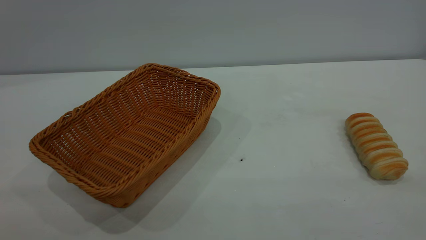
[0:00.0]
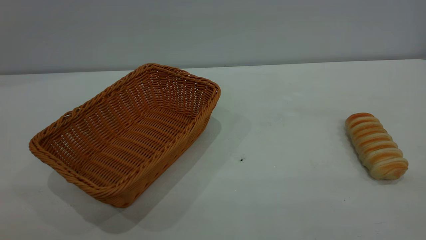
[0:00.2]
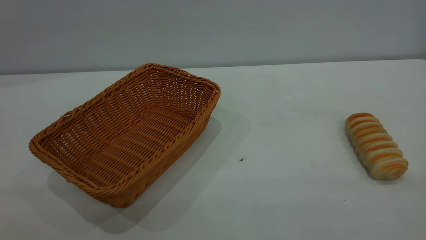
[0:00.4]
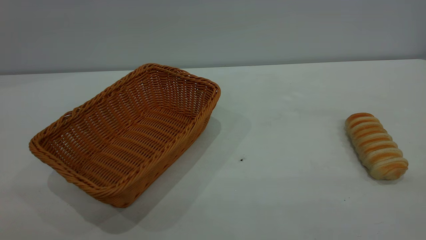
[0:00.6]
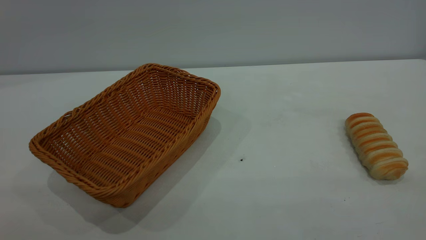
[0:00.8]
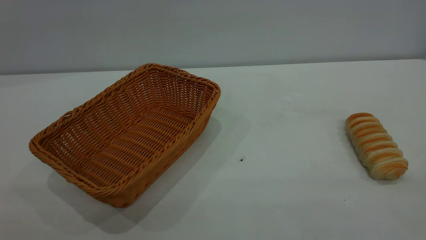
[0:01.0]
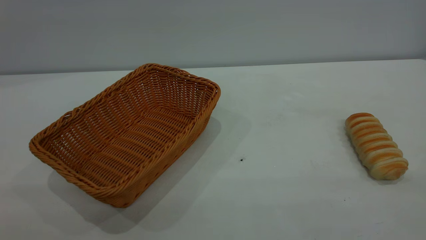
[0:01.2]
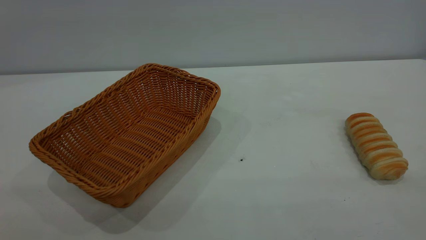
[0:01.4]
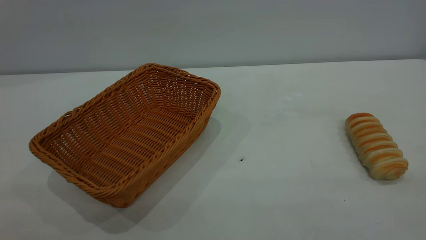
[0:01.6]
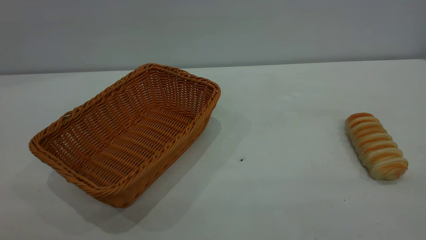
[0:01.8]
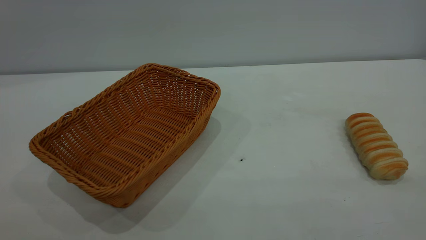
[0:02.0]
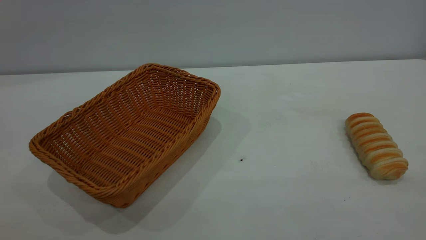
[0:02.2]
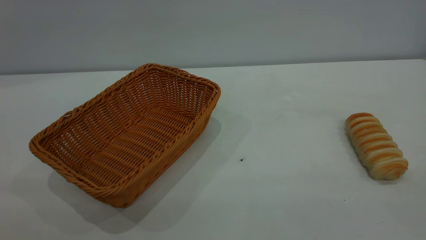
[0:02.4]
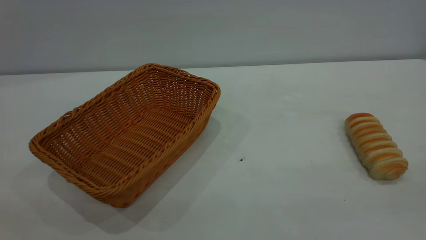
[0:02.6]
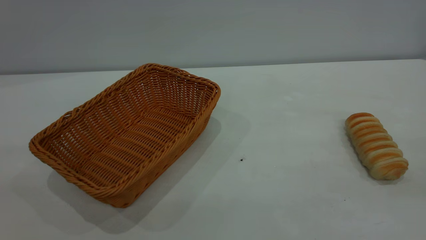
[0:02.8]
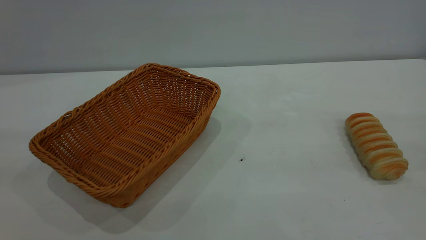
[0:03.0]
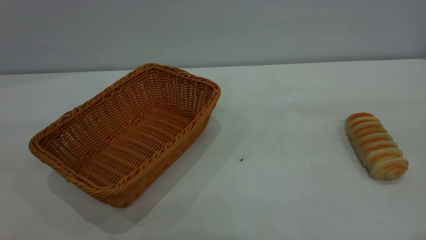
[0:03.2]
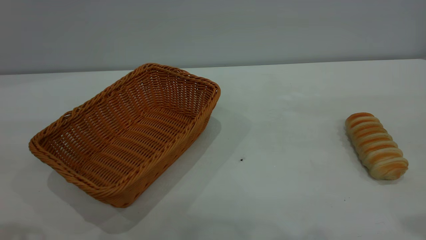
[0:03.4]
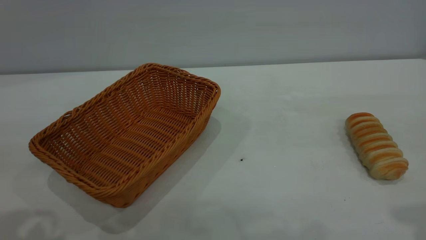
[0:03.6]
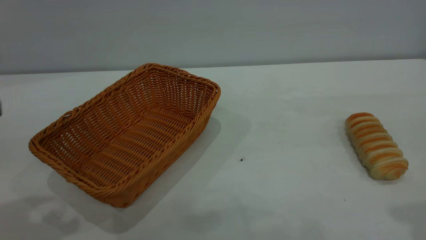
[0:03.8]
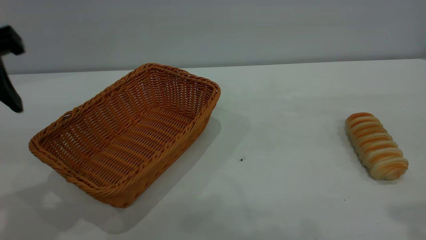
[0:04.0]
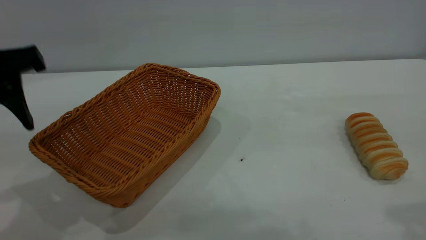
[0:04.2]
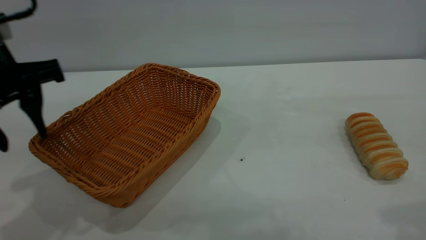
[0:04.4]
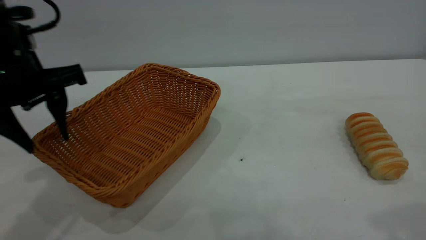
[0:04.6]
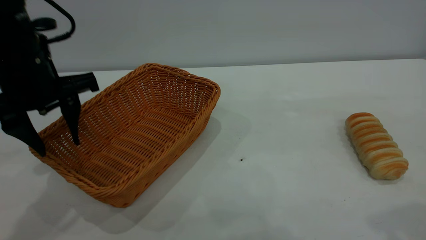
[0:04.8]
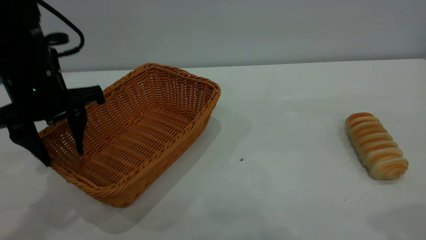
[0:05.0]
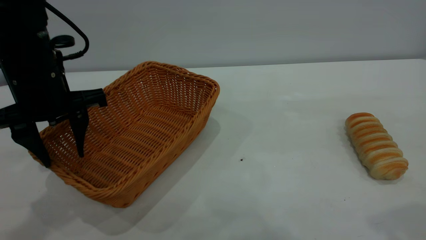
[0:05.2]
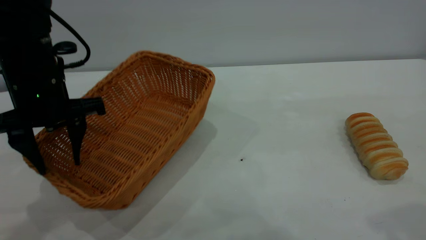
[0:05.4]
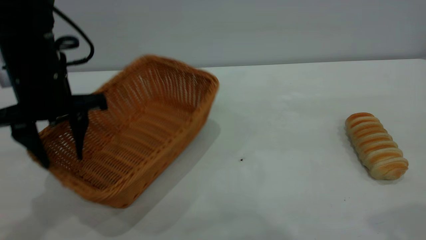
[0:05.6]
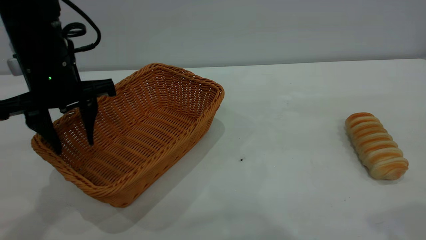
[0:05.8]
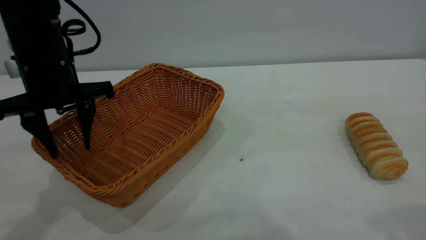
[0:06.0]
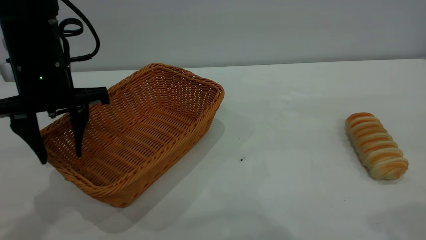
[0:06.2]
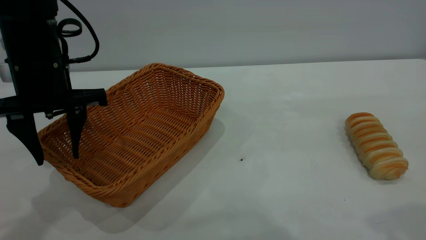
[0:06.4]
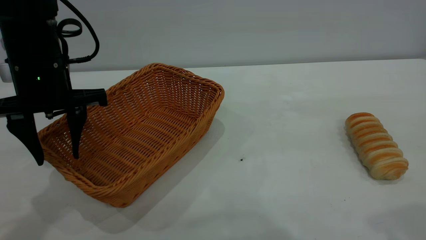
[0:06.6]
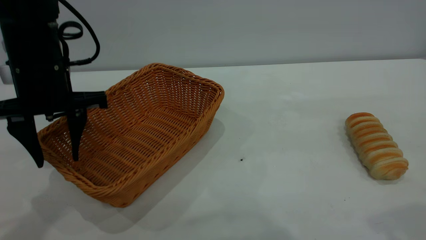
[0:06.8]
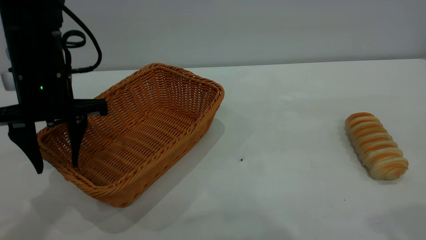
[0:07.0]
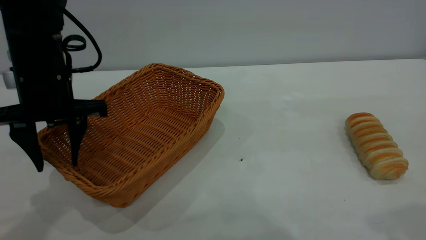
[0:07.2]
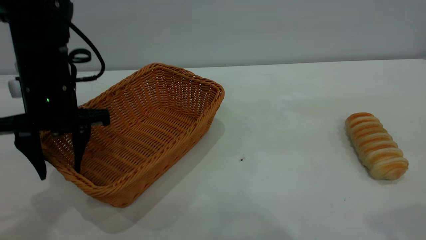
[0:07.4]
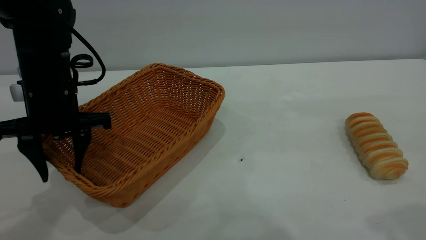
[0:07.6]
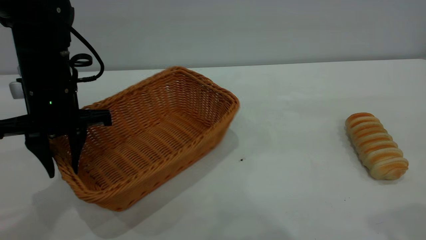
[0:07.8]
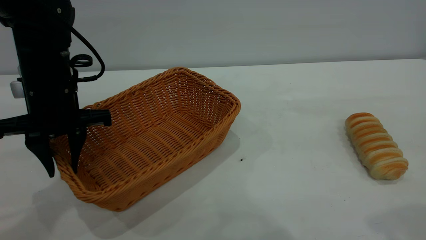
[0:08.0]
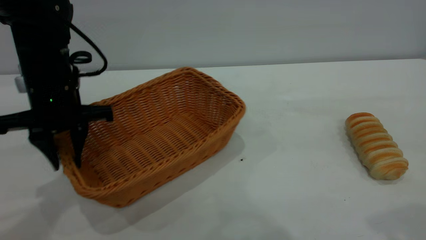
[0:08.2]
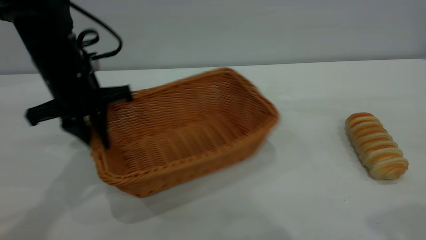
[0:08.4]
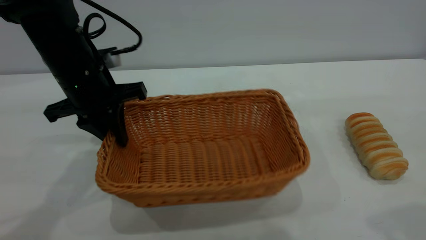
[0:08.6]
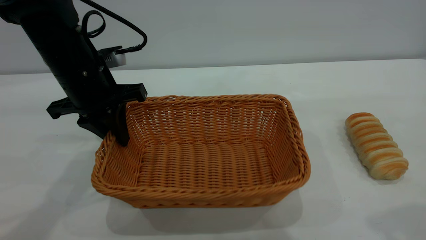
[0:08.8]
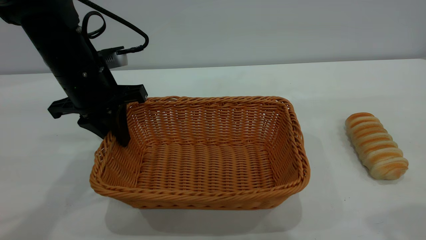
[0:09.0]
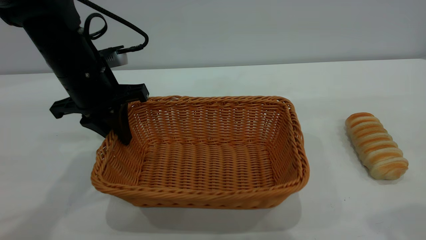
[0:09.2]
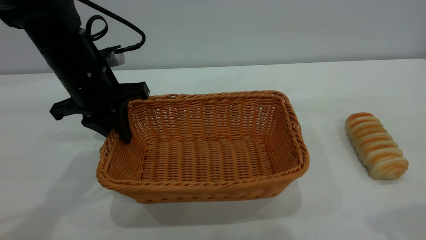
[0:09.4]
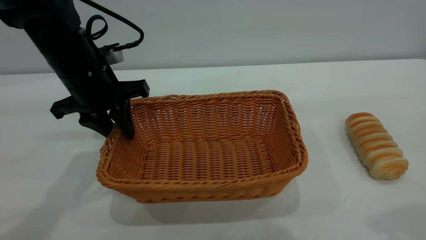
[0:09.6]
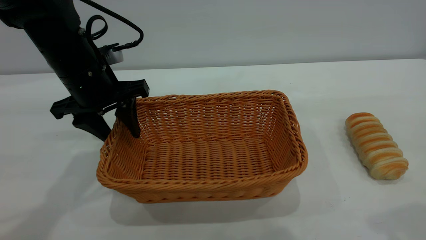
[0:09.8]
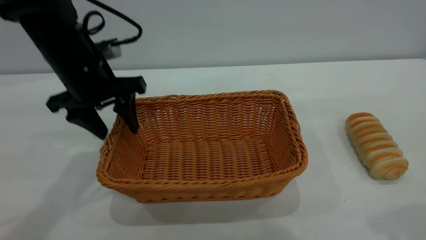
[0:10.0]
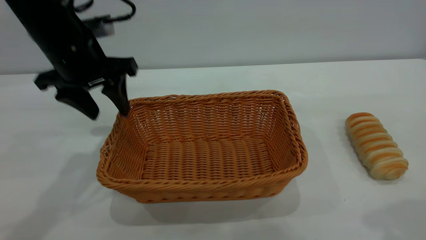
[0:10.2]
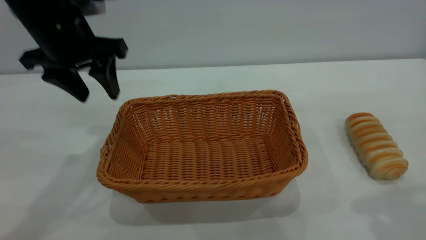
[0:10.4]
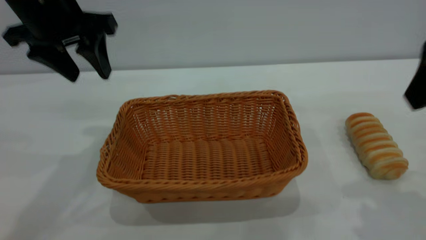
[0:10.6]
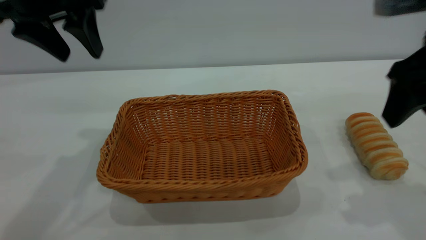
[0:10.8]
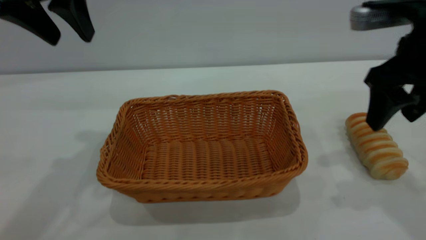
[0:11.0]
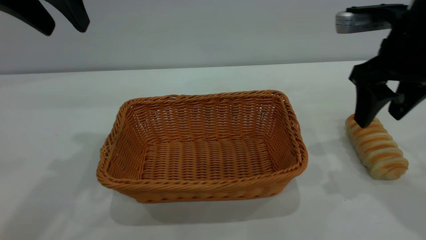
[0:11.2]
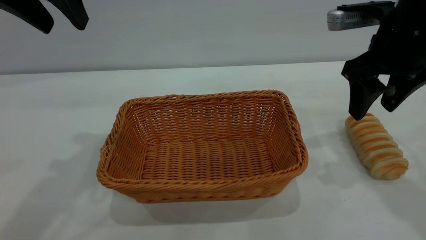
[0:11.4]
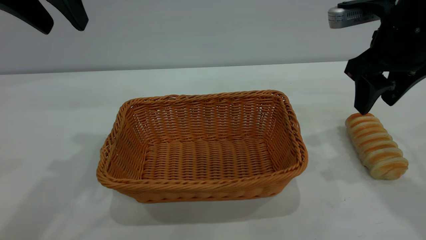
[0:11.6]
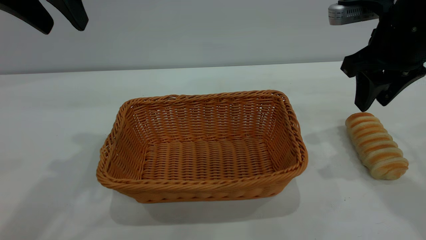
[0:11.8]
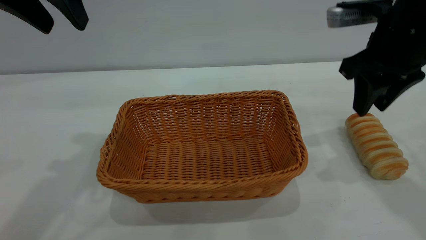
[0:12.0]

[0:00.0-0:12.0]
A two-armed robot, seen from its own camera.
Task of the whole recording: One hand grasps the yellow basket and places it in the middle of the table, while the other hand picks up the long bread and puts it into the yellow basket.
Step, 0:00.0 to 0:10.2: Move the basket to the center of view.
0:03.0 to 0:04.4: The left gripper goes approximately 20 cm forward and downward.
0:04.4 to 0:06.0: The left gripper goes about 10 cm forward and downward.
0:06.0 to 0:07.6: The grippers make only small movements.
0:07.6 to 0:09.0: The left gripper closes its fingers.
0:09.0 to 0:10.4: The left gripper moves upward, about 10 cm, and opens up.
0:10.4 to 0:12.0: The right gripper is displaced forward and downward by approximately 15 cm; the left gripper moves upward, some 10 cm.

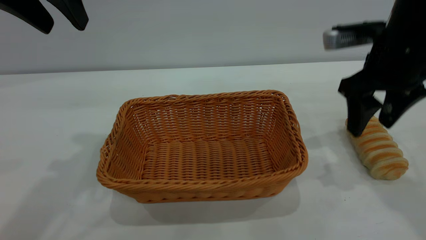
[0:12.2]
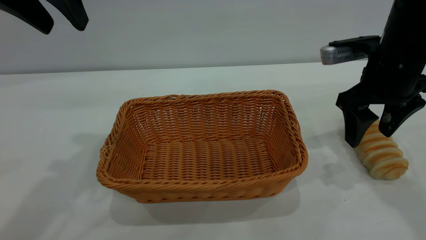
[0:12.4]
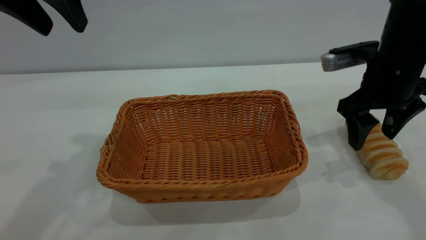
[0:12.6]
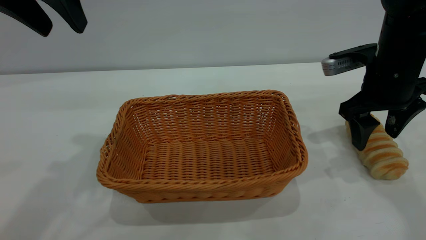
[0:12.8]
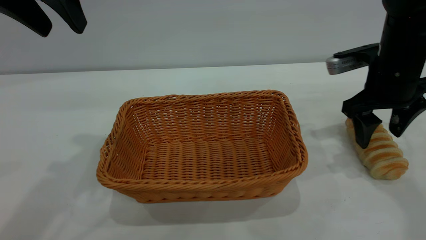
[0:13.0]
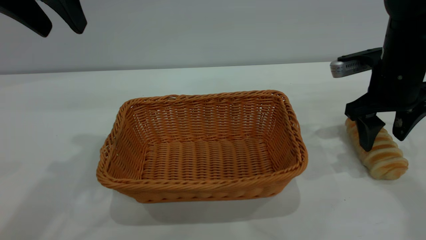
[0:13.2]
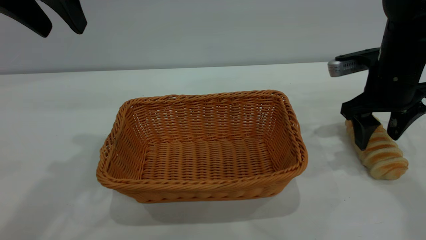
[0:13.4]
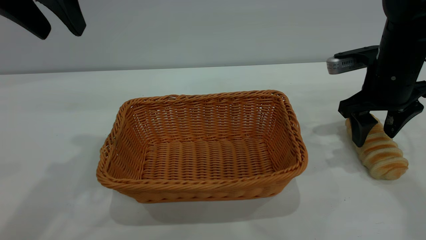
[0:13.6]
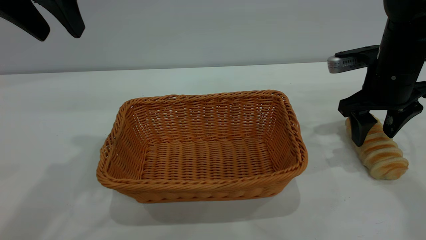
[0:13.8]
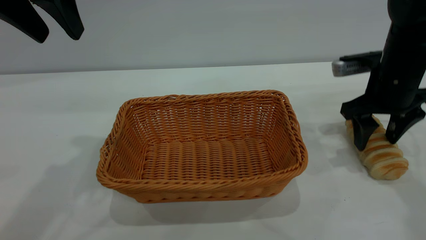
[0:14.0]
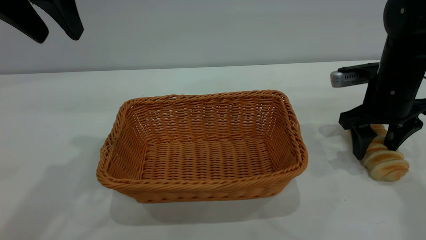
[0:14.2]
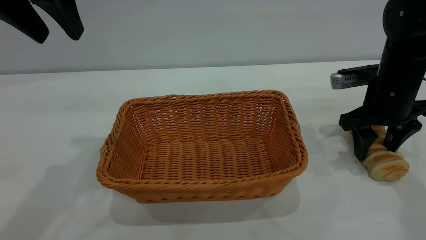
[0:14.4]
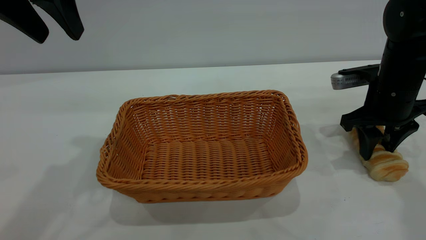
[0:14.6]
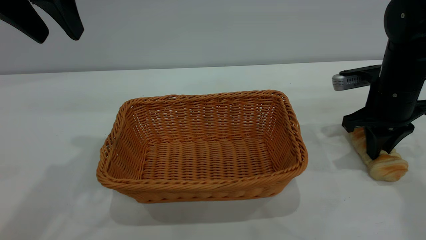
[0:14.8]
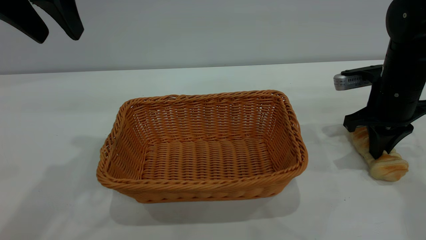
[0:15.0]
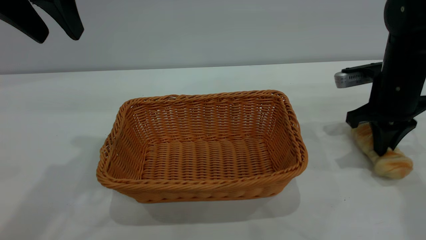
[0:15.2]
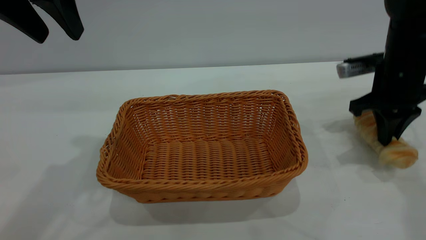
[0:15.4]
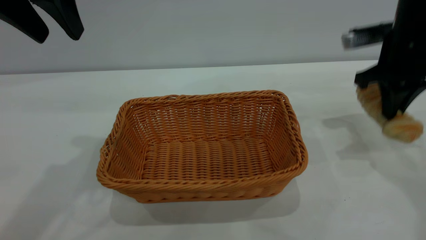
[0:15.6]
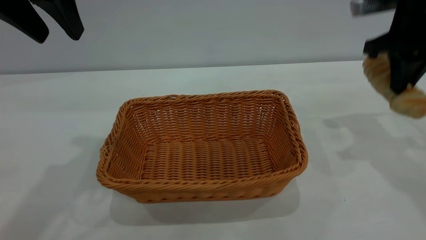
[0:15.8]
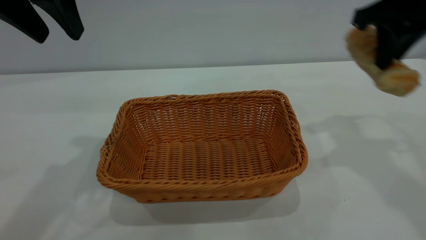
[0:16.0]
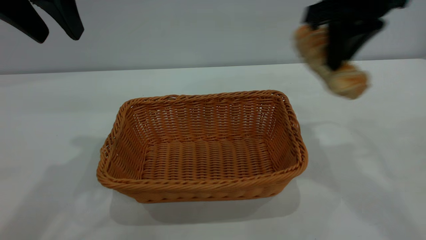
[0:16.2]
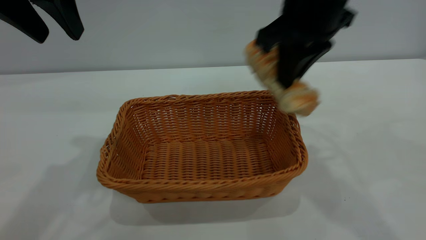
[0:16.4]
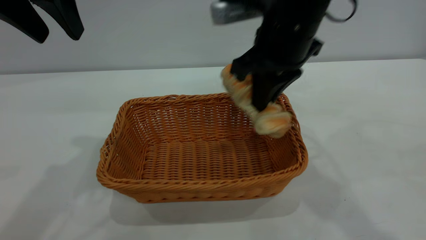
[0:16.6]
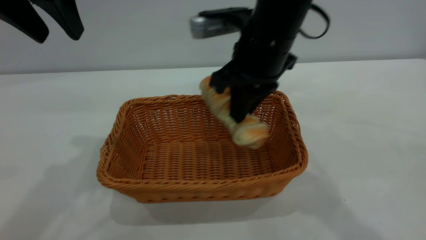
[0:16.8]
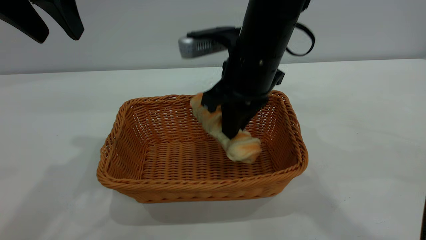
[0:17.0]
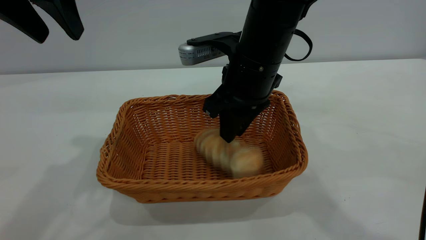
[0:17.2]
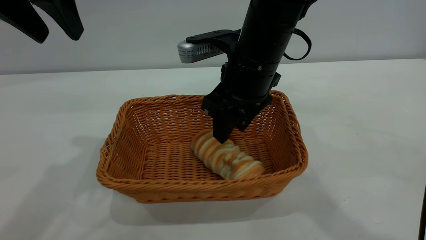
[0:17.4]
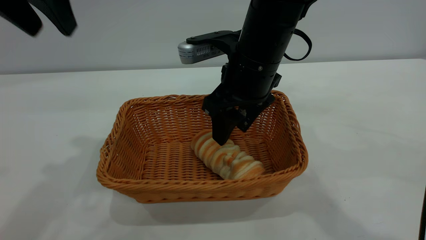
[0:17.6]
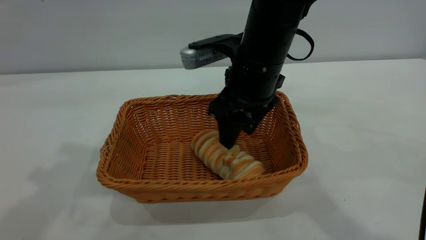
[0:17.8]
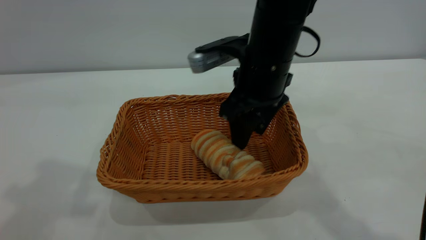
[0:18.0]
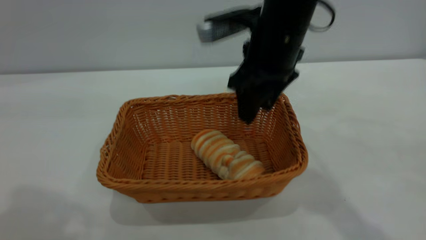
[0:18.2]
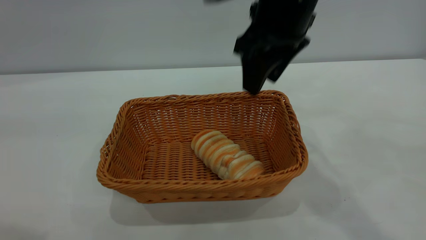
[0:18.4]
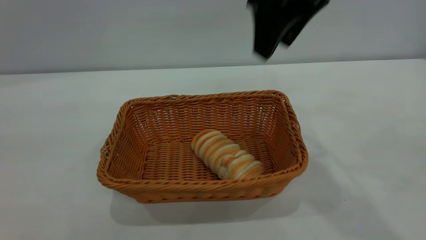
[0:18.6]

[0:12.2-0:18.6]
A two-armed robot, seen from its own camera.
Task of the whole recording: One hand grasps the yellow basket and places it in the middle of the table, while the other hand picks up the long bread and puts it into the yellow basket.
Step, 0:15.8 to 0:18.4: place the bread into the basket.
0:12.2 to 0:13.8: The right gripper ends up approximately 5 cm from where it was.
0:13.8 to 0:15.4: The right gripper closes its fingers.
0:15.4 to 0:17.0: The right gripper shifts some 20 cm to the left.
0:17.0 to 0:18.6: The left gripper heads backward, covering approximately 25 cm. Meanwhile the right gripper is displaced upward by about 15 cm, and opens its fingers.
